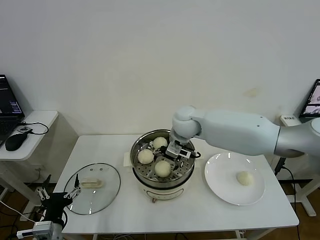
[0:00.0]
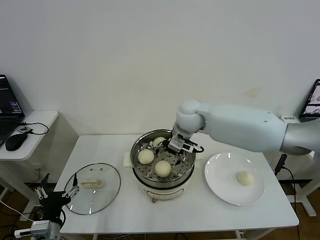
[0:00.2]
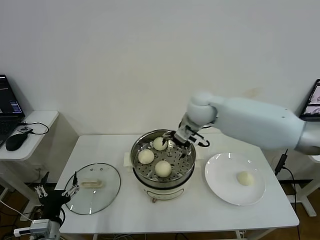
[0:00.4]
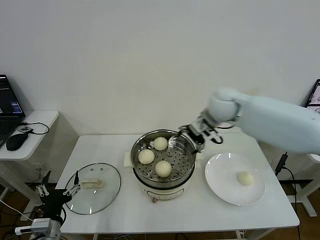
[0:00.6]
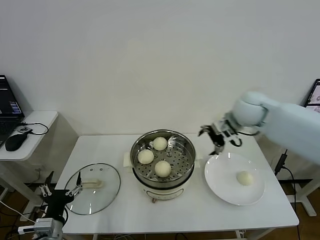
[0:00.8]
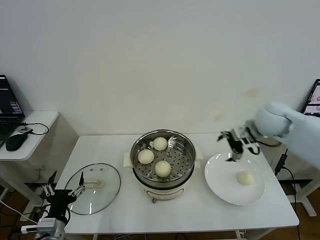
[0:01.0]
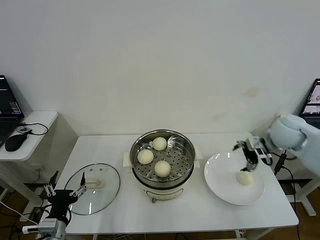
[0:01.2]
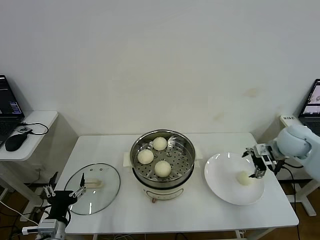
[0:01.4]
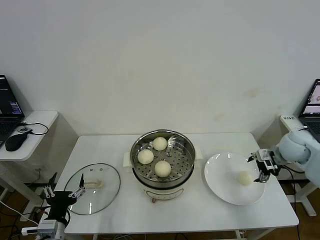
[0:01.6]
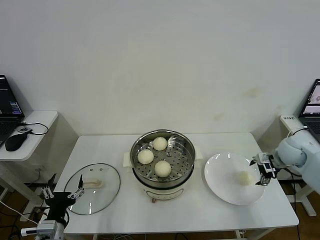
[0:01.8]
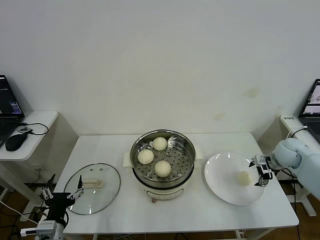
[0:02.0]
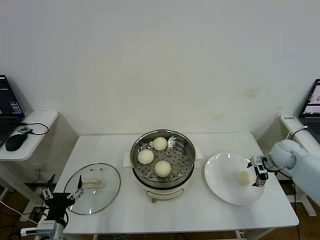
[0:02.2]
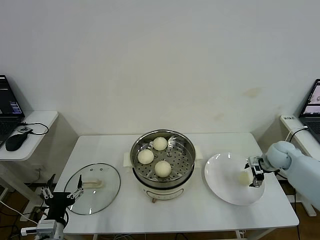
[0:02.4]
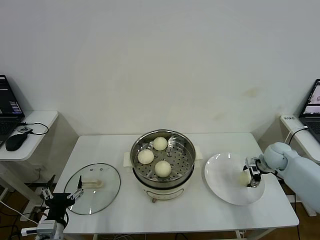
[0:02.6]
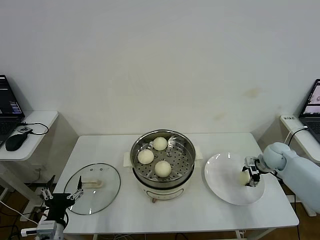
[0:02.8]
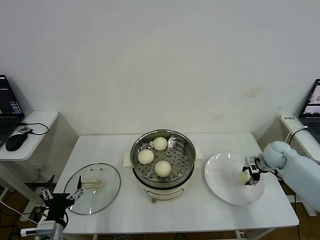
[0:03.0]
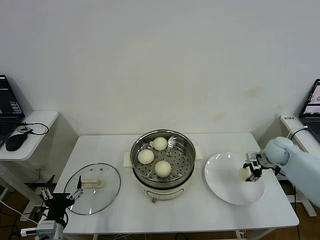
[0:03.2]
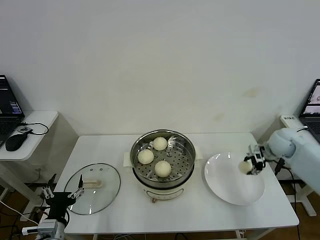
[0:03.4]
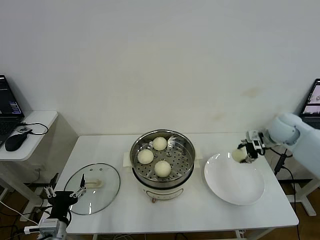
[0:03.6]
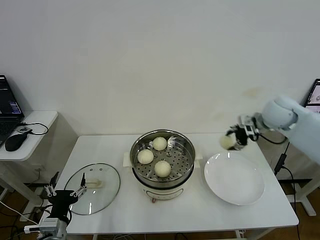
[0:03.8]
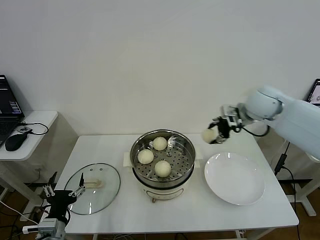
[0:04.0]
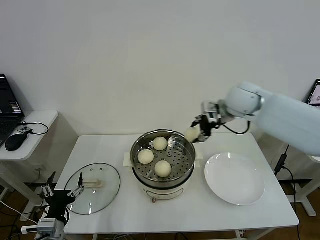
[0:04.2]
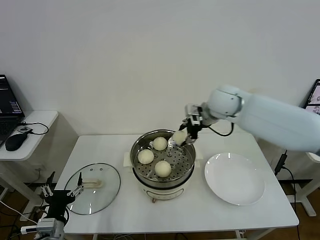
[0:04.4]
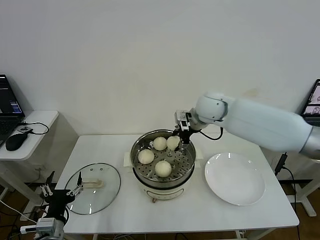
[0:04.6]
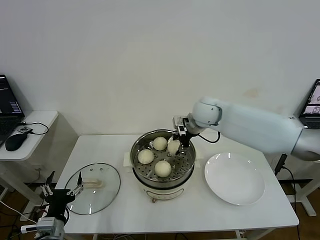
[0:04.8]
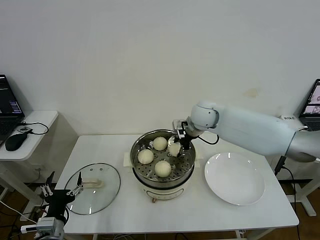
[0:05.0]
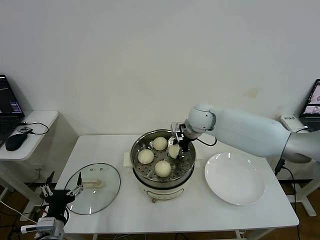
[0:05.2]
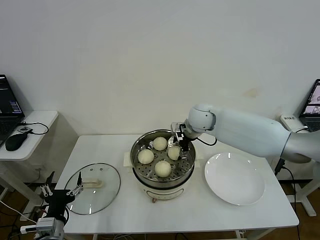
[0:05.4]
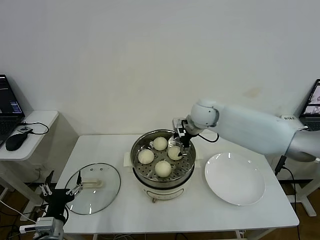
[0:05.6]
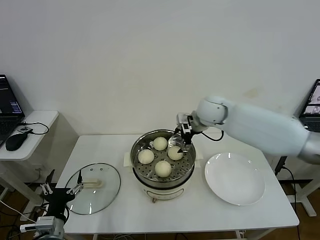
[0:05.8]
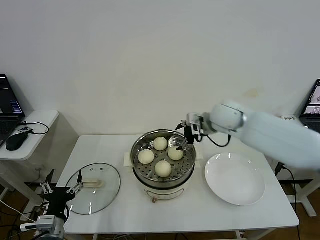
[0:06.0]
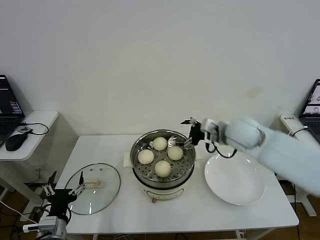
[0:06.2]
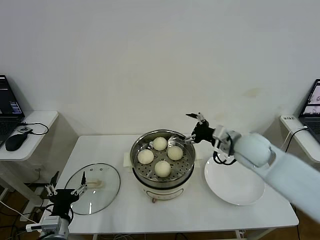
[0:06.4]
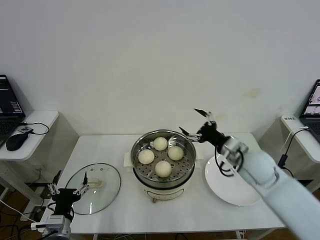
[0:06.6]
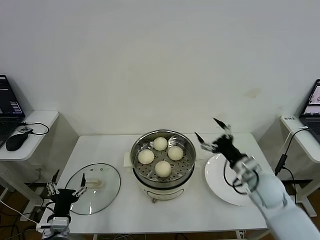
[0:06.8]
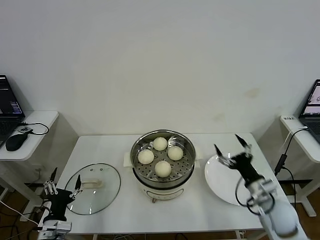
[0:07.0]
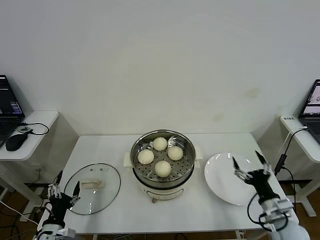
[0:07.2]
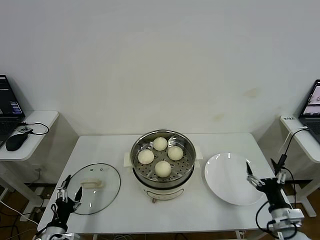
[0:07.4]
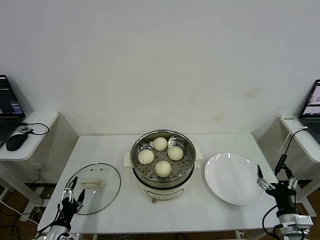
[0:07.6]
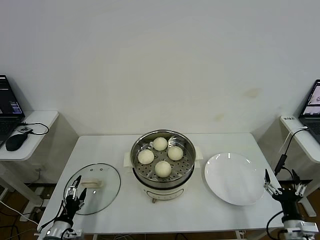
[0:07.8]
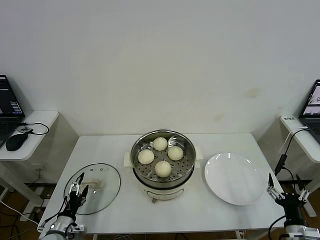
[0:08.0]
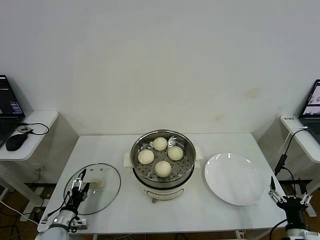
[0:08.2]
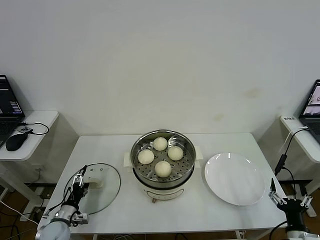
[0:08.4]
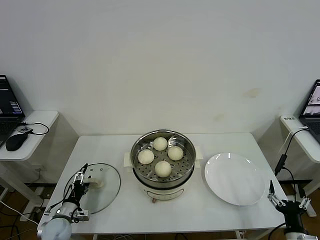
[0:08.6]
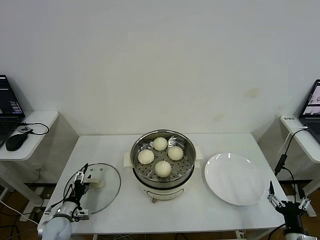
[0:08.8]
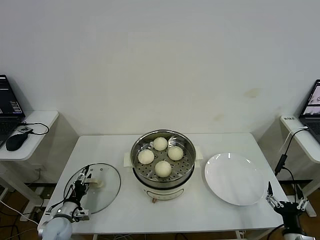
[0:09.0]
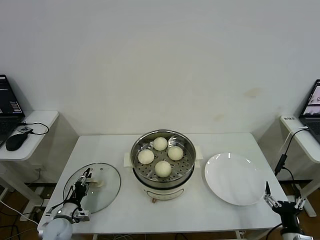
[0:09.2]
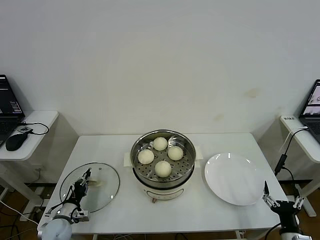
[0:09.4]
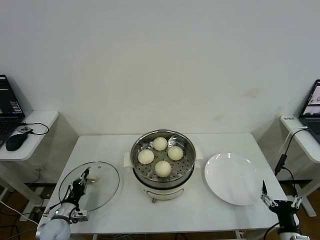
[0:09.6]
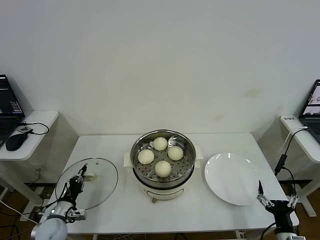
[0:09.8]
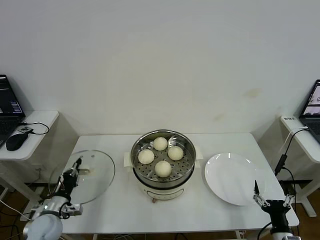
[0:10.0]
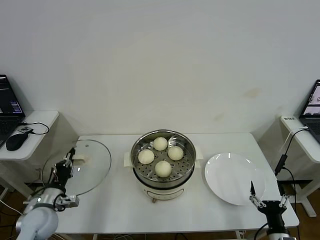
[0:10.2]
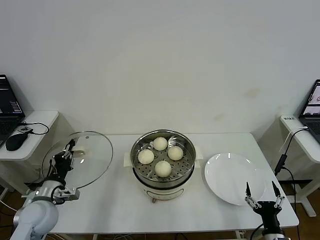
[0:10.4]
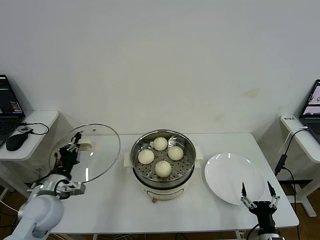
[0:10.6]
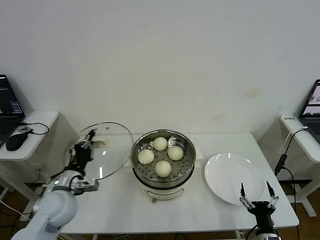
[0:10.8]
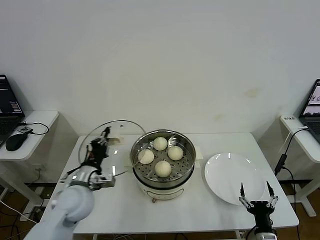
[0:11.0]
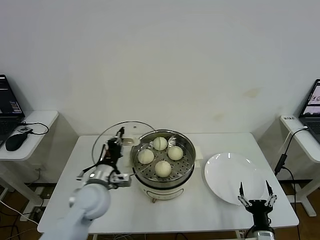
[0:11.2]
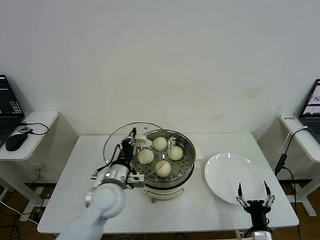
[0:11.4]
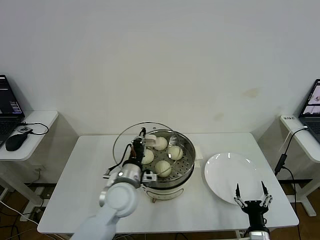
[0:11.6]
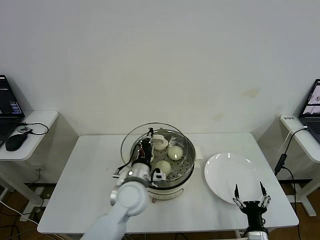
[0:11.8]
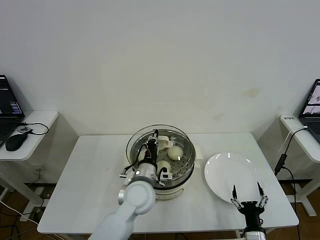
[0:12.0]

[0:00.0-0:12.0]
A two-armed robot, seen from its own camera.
Step, 0:00.2 to 0:03.0: Grasp the baozi in the plate with right gripper.
Step, 0:03.2 to 0:05.4: Place the baozi on the steamer with right gripper.
Step, 0:05.8 to 0:09.6: Grasp the pot lid with left gripper.
0:00.0 to 0:01.6: The right gripper moves to the right, roughly 35 cm.
0:01.6 to 0:03.0: The right gripper moves downward, about 10 cm, and closes its fingers.
0:03.0 to 0:04.4: The right gripper is displaced to the left and upward by approximately 35 cm.
0:04.4 to 0:06.0: The right gripper opens.
0:06.0 to 0:07.6: The right gripper travels backward, downward and to the right by approximately 40 cm. The left gripper is displaced downward and to the left by some 10 cm.
0:07.6 to 0:09.0: The right gripper changes place by roughly 5 cm; the left gripper travels forward by some 10 cm.
0:09.0 to 0:10.4: The left gripper travels upward by approximately 15 cm, and closes up.
0:10.4 to 0:12.0: The left gripper shifts some 30 cm to the right. Meanwhile the right gripper is displaced to the left by some 5 cm.

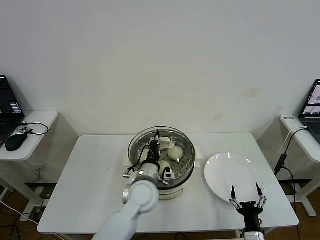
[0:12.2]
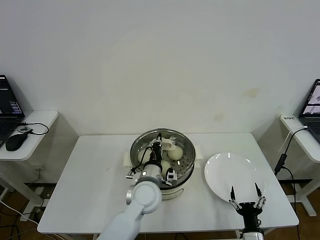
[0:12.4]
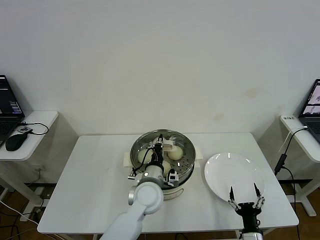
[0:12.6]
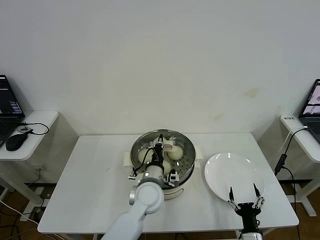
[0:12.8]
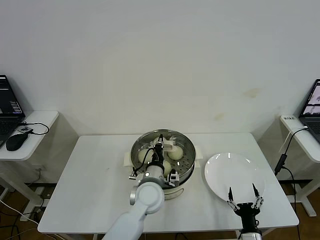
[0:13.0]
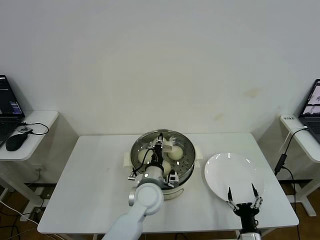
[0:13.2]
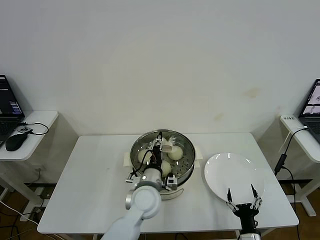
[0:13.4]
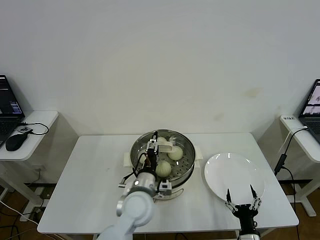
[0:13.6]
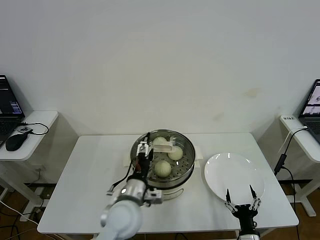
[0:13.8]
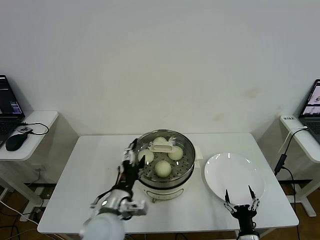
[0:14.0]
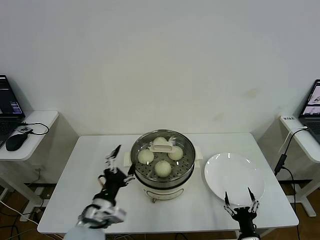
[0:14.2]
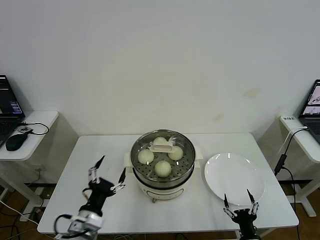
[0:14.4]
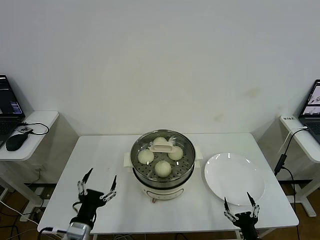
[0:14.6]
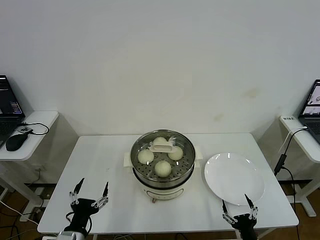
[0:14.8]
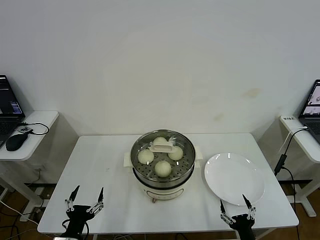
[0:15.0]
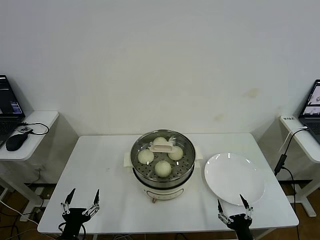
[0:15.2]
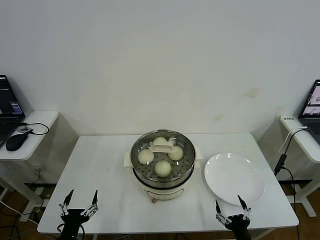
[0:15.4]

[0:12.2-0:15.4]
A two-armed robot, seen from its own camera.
0:12.2 to 0:13.8: The left gripper shifts by some 5 cm, and opens up.
0:13.8 to 0:15.4: The left gripper shifts roughly 30 cm to the left, backward and downward.
